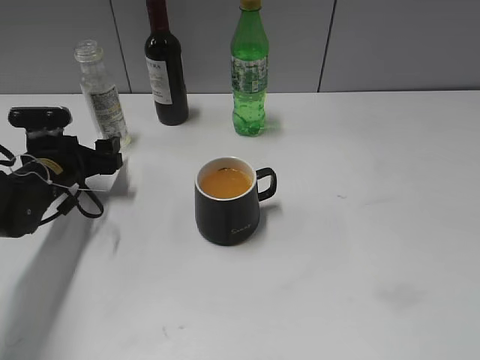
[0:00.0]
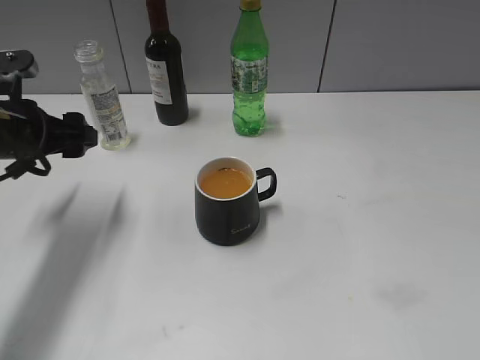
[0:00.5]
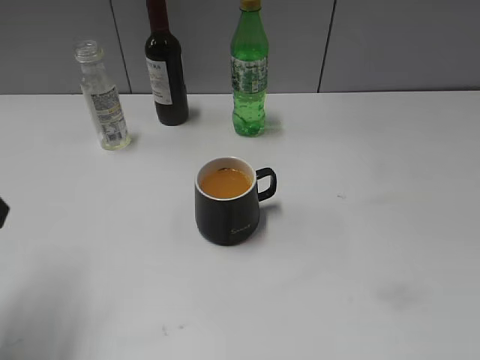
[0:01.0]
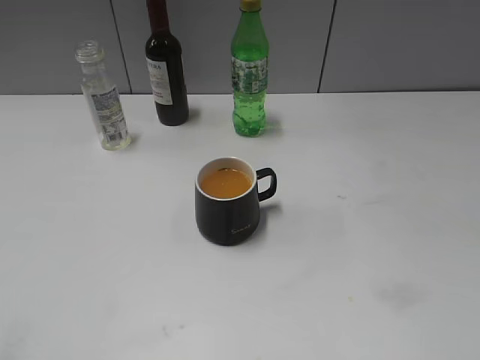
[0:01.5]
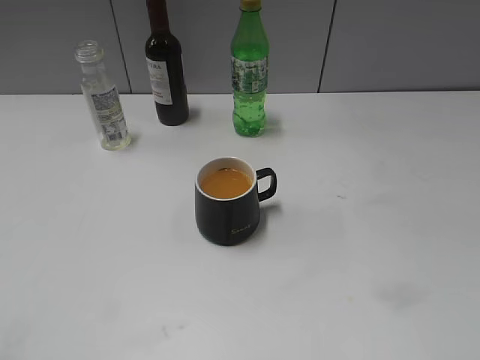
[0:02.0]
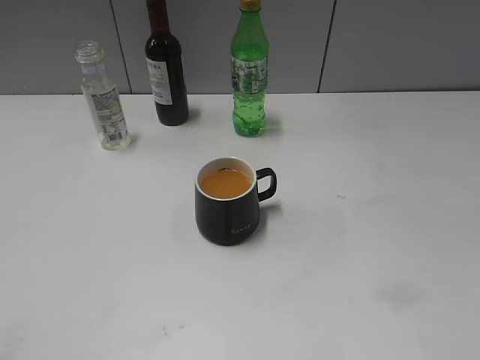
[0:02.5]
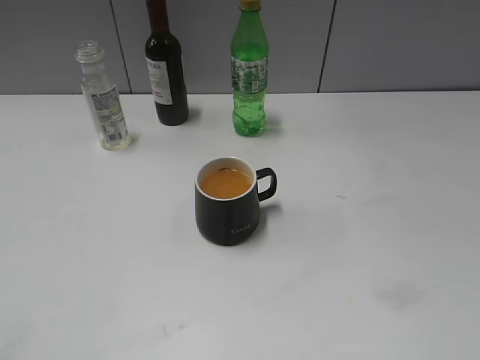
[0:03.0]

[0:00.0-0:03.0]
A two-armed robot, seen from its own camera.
0:00.0 to 0:01.5: The left gripper moves backward and upward, some 40 cm.

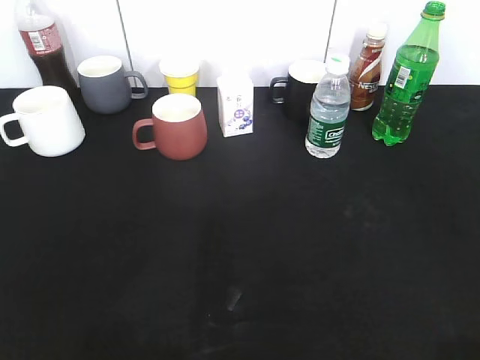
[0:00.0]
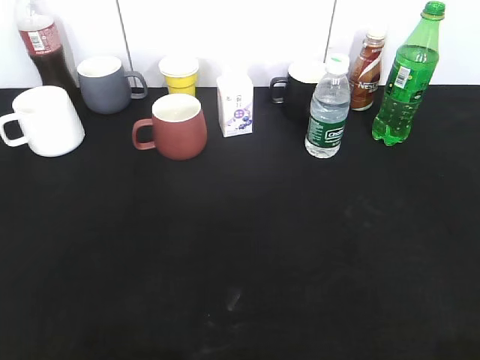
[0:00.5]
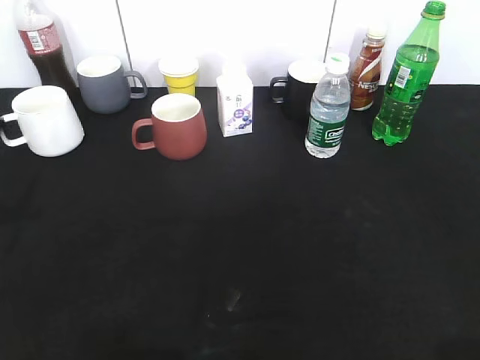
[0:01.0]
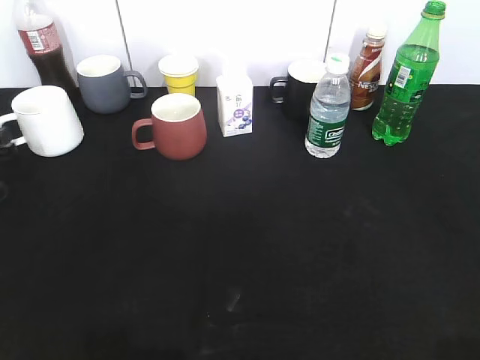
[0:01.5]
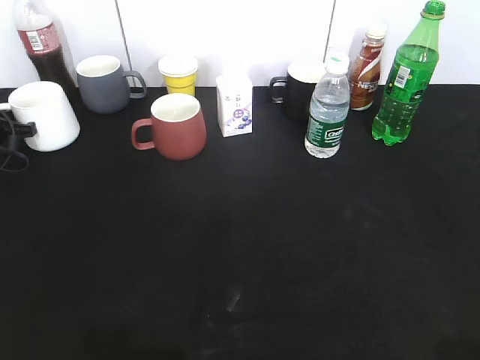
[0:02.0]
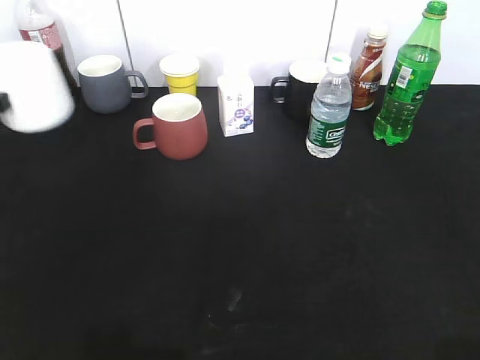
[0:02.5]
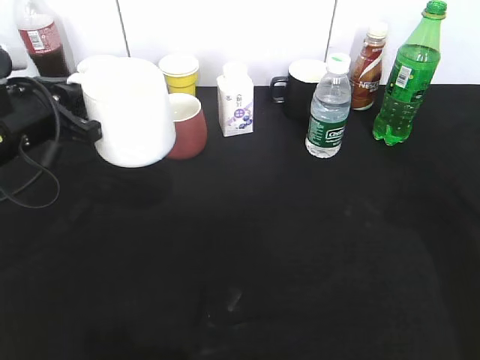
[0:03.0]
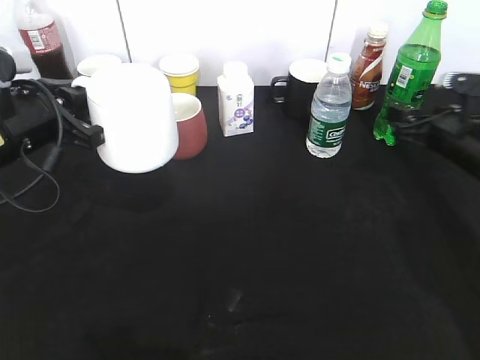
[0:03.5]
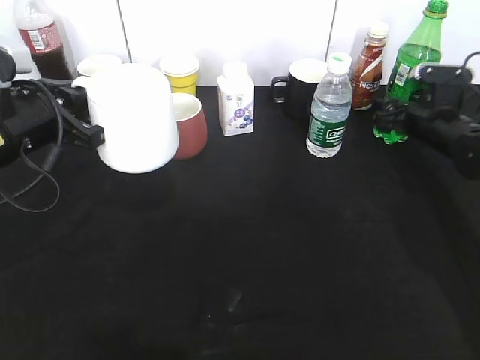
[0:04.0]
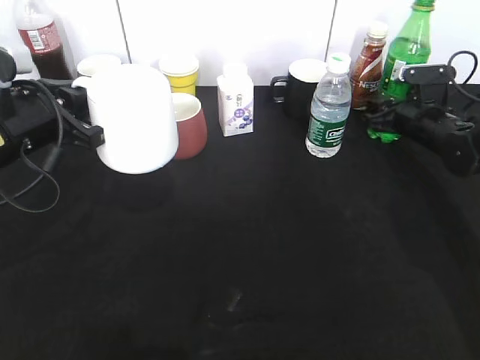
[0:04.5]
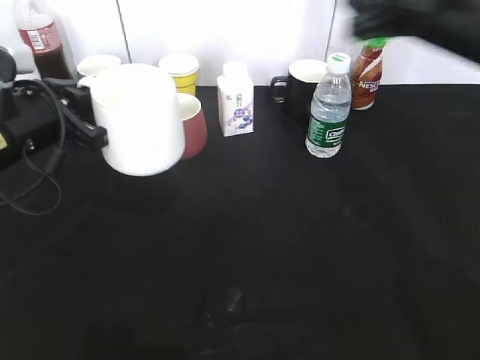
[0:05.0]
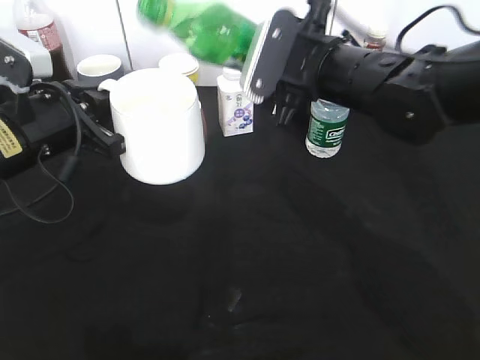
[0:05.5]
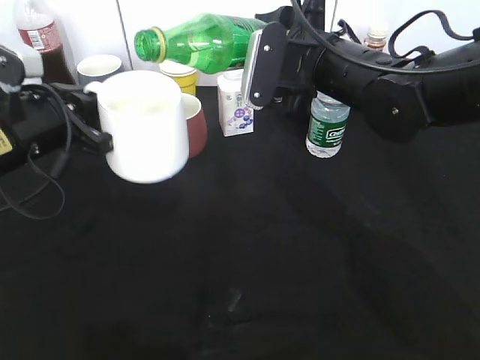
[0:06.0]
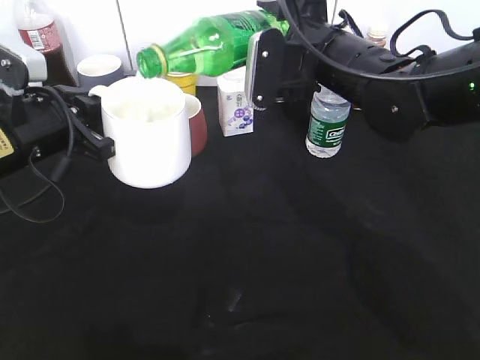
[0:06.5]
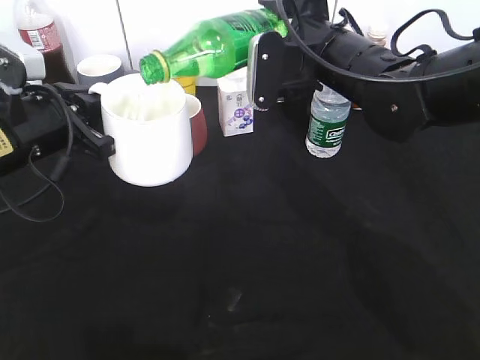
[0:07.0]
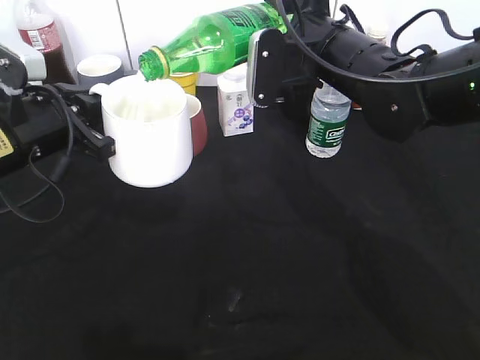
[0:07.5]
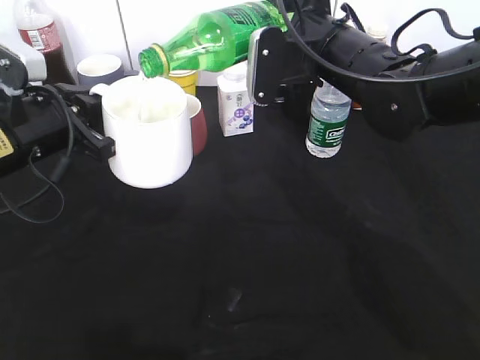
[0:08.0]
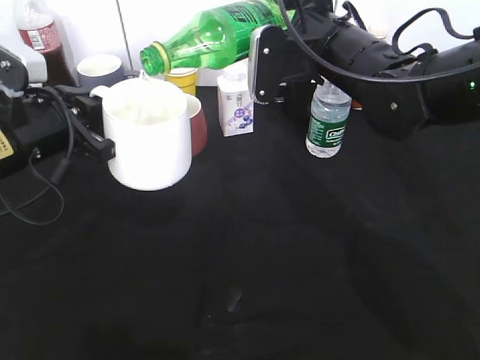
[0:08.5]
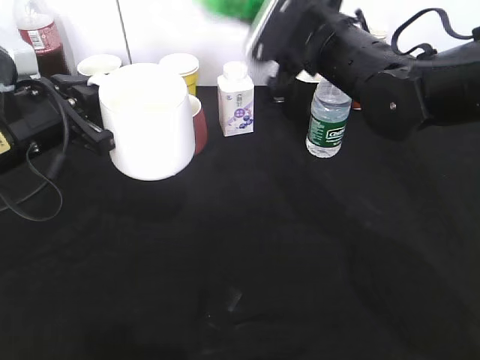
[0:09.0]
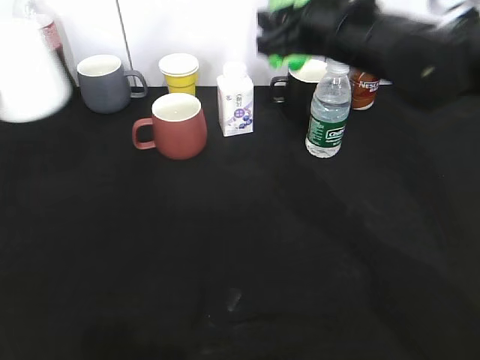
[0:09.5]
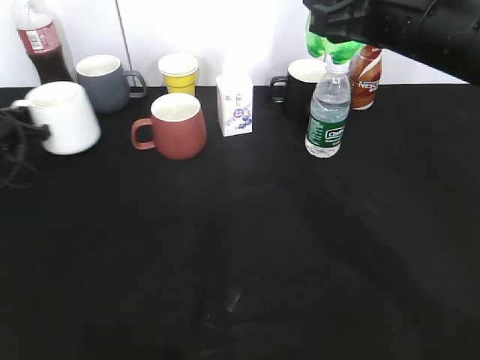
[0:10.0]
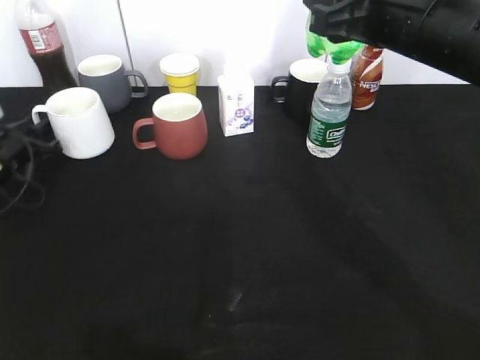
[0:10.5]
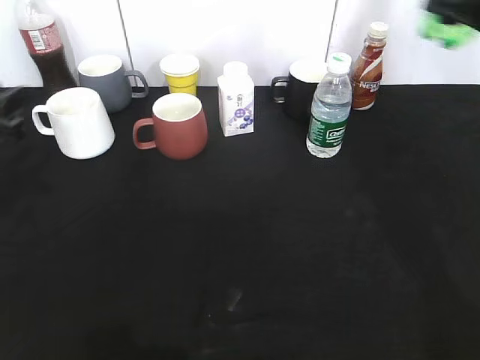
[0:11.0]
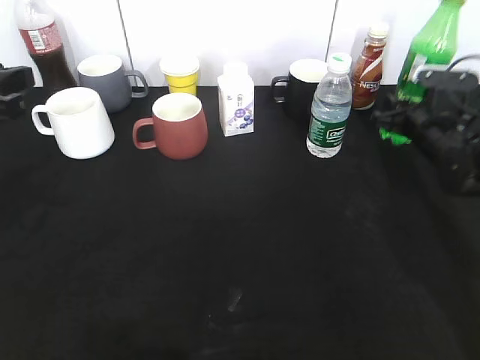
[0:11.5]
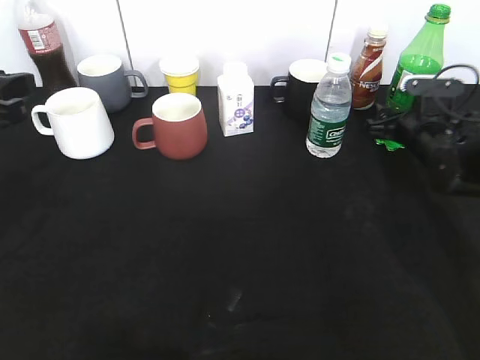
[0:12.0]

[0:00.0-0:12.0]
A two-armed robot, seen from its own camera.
Step, 0:02.0 to 0:03.0: Lift the white cup with left gripper.
Step, 0:03.5 to 0:04.0: Grasp the bottle with sprite with right gripper.
Step, 0:04.5 to 0:08.5: Pour the sprite from bottle to cup with right gripper.
Step, 0:09.0 to 0:10.5: Place the white cup on the table with left gripper.
0:00.0 to 0:02.0: The left gripper is displaced forward and downward by roughly 50 cm, and closes its fingers.
0:02.0 to 0:04.0: The right gripper goes approximately 50 cm forward and downward, and opens its fingers. Meanwhile the left gripper goes about 25 cm to the right, backward and upward.
0:04.0 to 0:06.0: The right gripper moves to the left, upward and backward, approximately 25 cm, and closes up.
0:06.0 to 0:08.0: The grippers make only small movements.
0:08.0 to 0:10.0: The right gripper travels backward and upward by about 10 cm. The left gripper is displaced to the left, forward and downward by roughly 25 cm.
0:10.0 to 0:12.0: The left gripper heads backward, upward and to the right, covering approximately 25 cm, and opens. Meanwhile the right gripper shifts about 30 cm downward, forward and to the right, and opens its fingers.

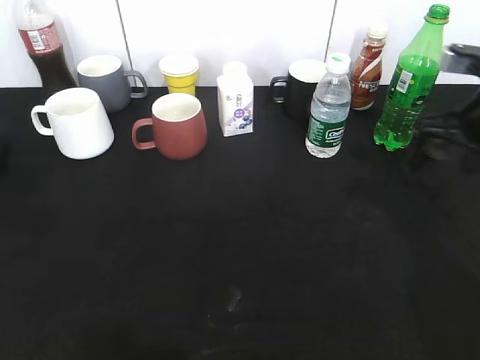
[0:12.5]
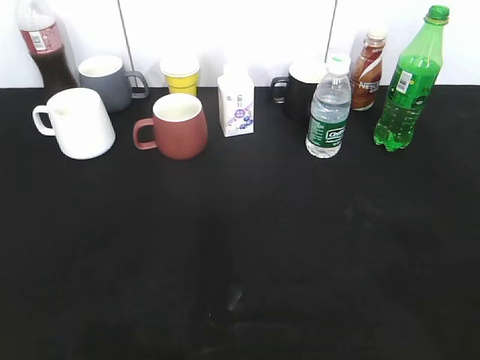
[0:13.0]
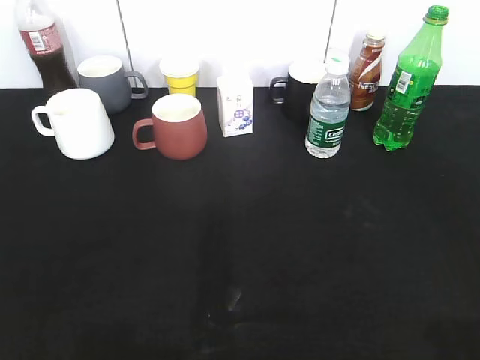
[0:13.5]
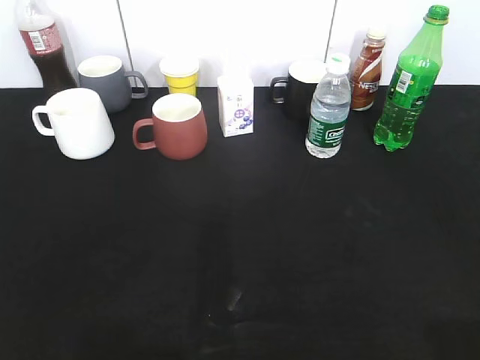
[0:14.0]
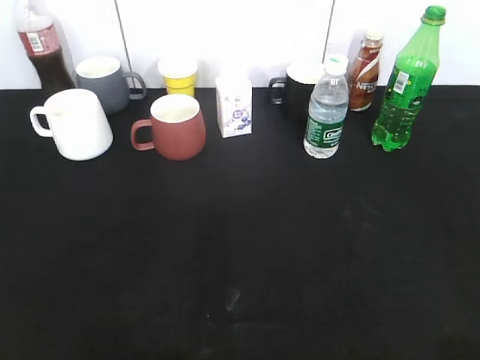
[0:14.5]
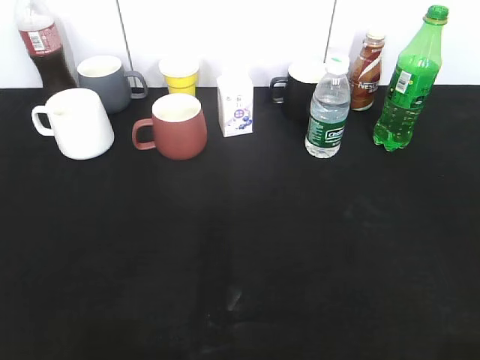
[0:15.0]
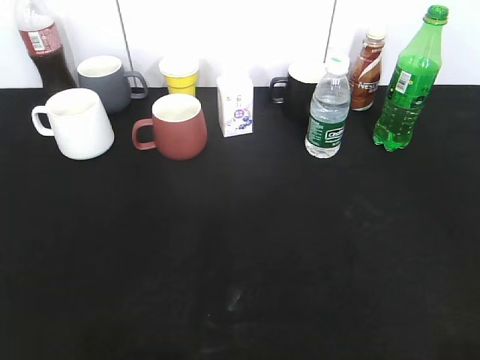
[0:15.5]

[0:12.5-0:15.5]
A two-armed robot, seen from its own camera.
0:12.5 to 0:14.0: Both grippers travel together backward, approximately 25 cm.

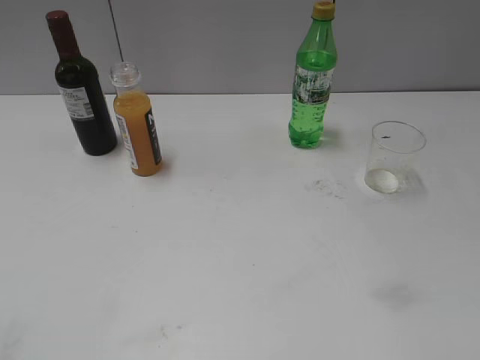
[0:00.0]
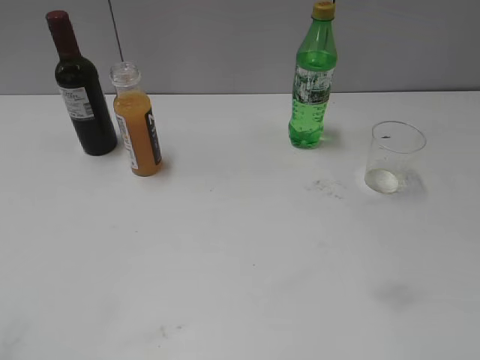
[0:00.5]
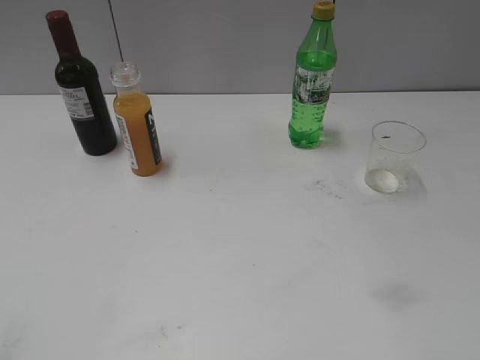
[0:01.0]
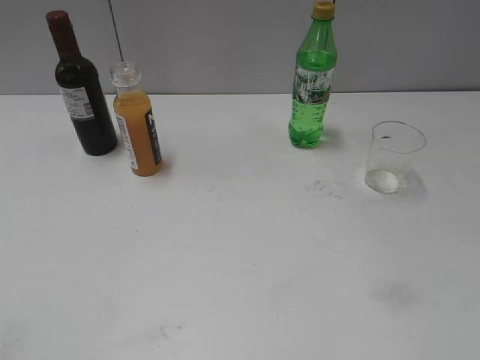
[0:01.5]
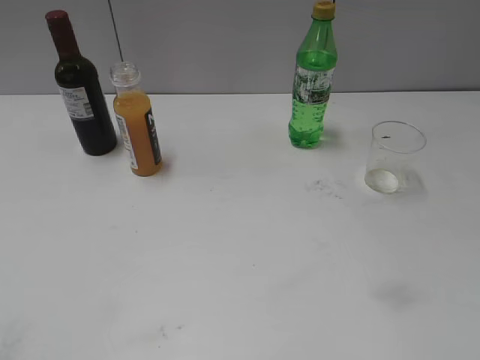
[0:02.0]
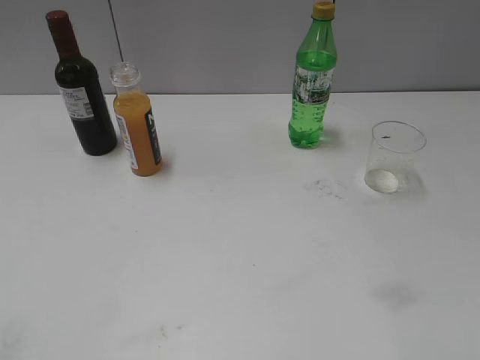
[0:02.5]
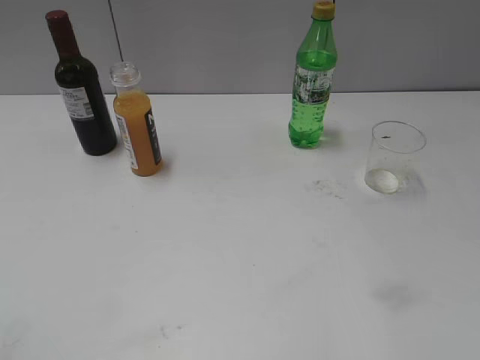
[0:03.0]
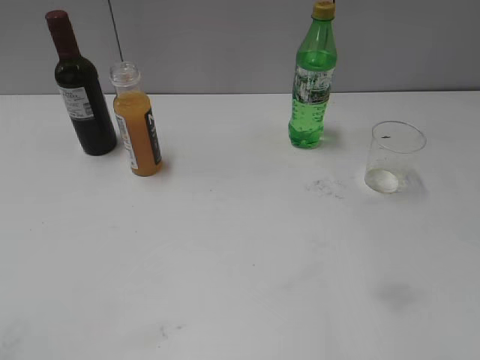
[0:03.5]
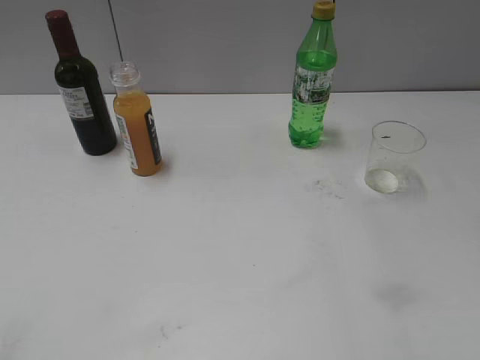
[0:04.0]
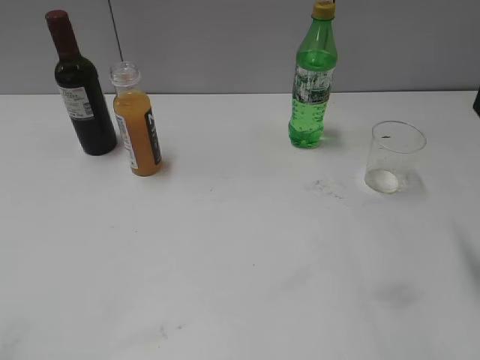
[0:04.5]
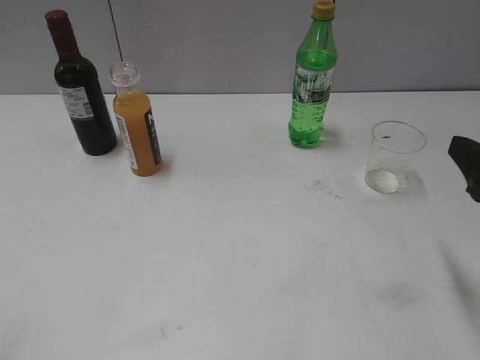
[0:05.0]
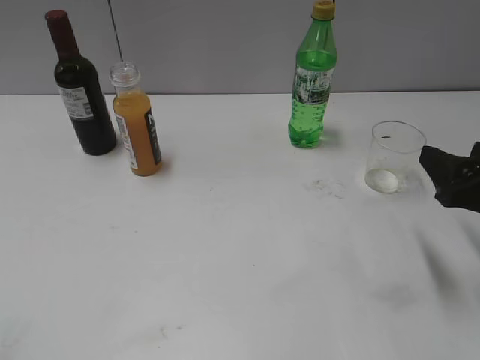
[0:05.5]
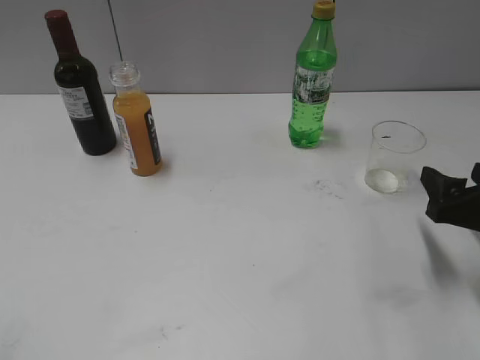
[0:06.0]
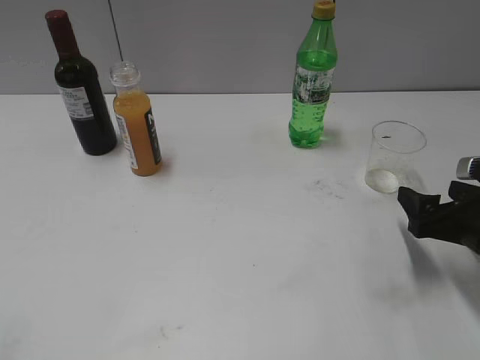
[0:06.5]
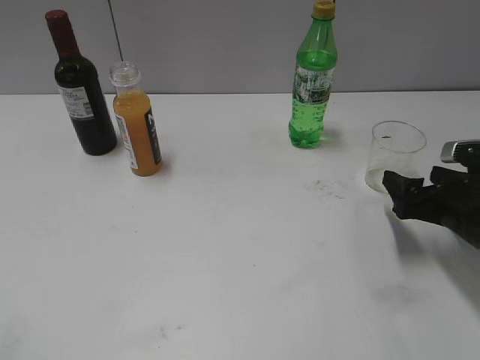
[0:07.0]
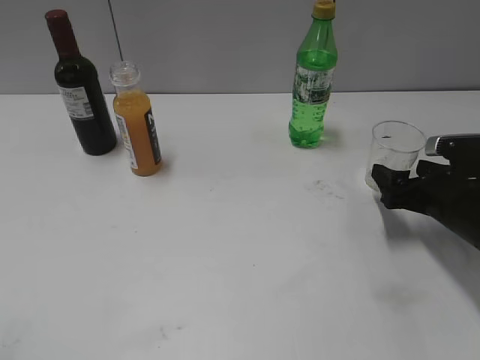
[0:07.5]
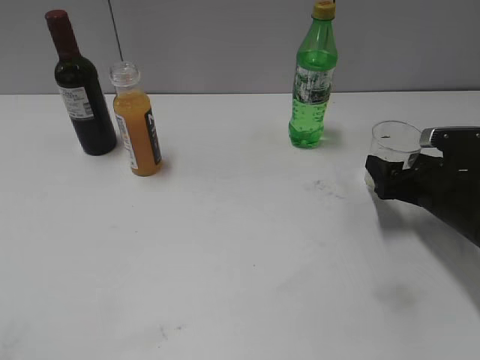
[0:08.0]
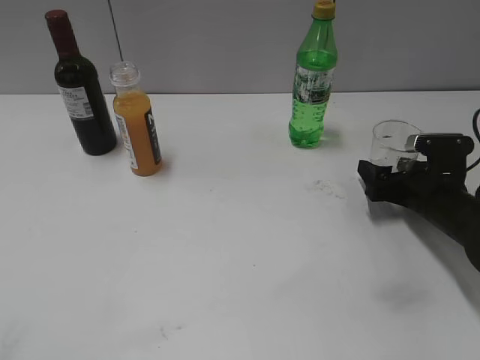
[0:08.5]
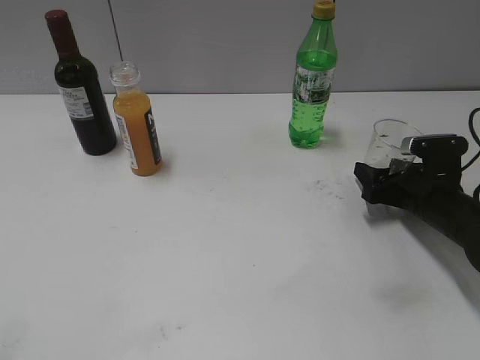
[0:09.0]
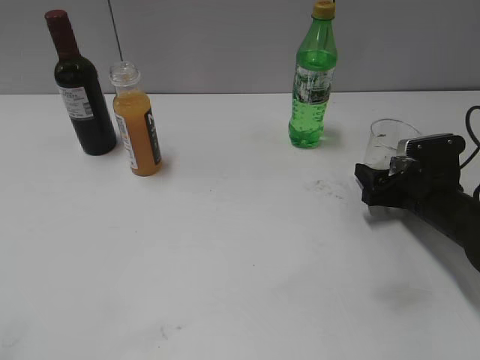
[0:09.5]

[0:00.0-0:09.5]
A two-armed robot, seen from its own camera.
Step, 0:04.5 to 0:09.5: Grasp the transparent cup with right gripper.
0:04.0 to 0:05.5: The right gripper moves downward, about 15 cm.
0:05.5 to 0:07.5: The right gripper goes about 10 cm downward and forward, and opens.
0:07.5 to 0:09.5: The right gripper closes up.
